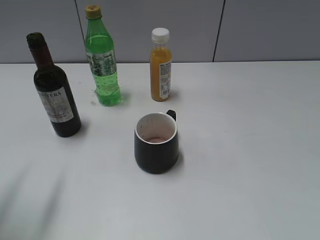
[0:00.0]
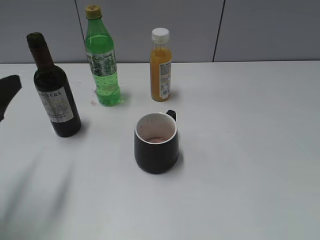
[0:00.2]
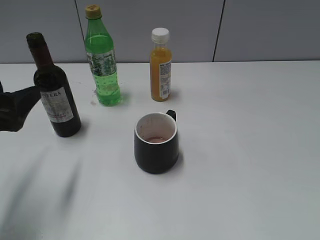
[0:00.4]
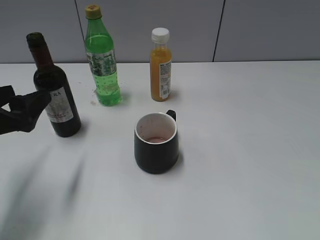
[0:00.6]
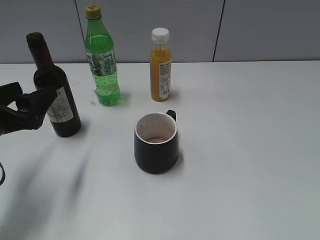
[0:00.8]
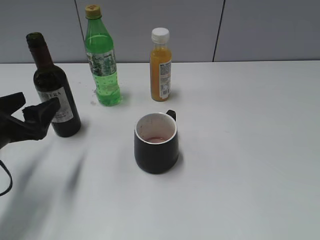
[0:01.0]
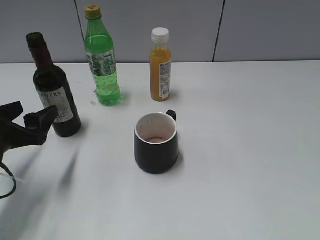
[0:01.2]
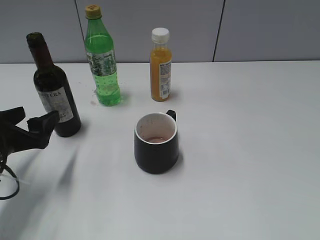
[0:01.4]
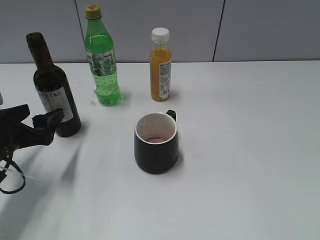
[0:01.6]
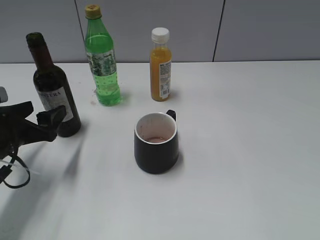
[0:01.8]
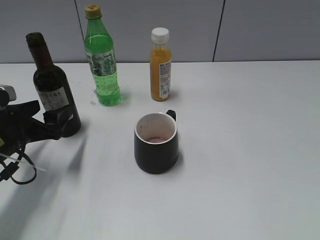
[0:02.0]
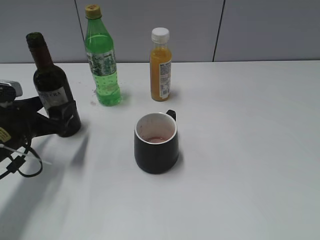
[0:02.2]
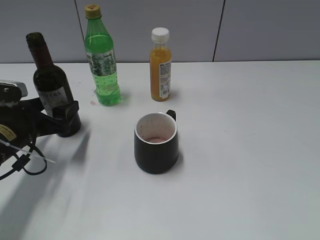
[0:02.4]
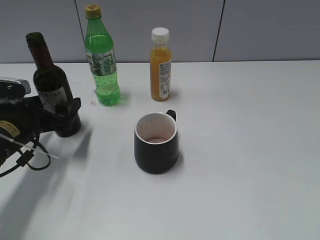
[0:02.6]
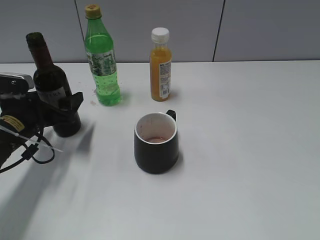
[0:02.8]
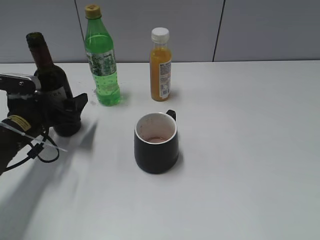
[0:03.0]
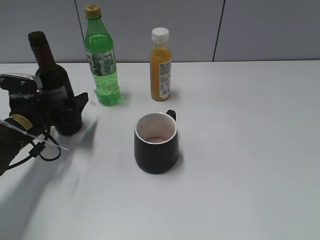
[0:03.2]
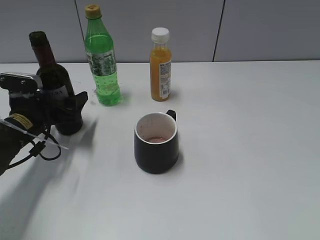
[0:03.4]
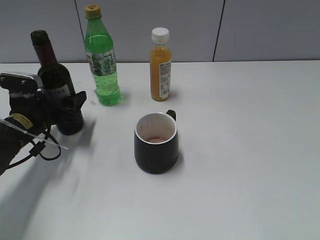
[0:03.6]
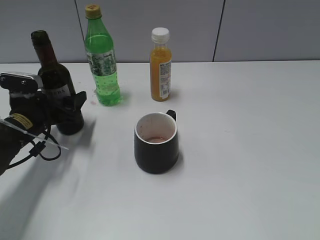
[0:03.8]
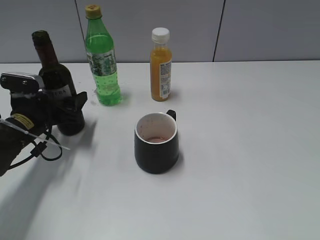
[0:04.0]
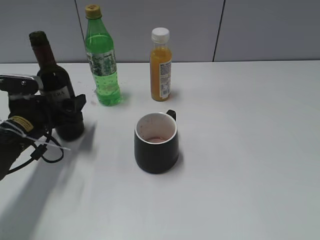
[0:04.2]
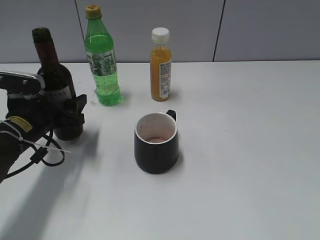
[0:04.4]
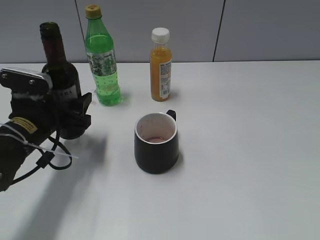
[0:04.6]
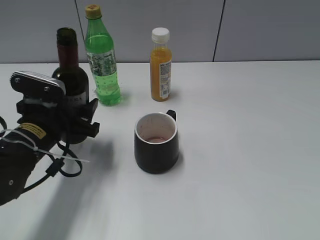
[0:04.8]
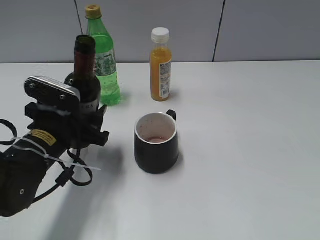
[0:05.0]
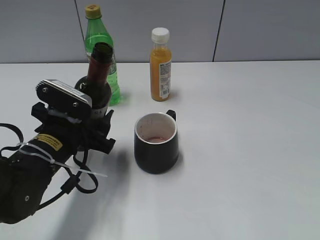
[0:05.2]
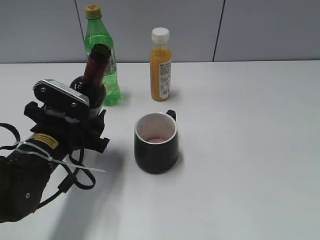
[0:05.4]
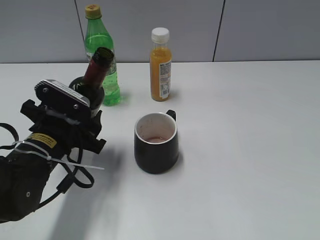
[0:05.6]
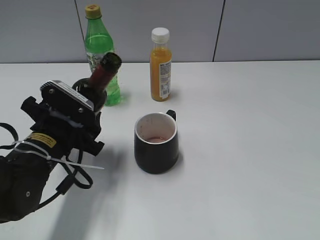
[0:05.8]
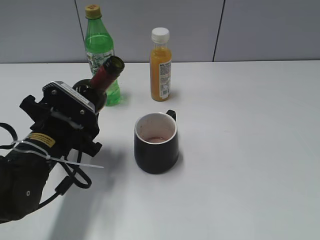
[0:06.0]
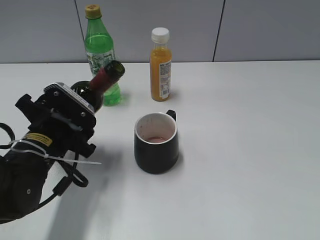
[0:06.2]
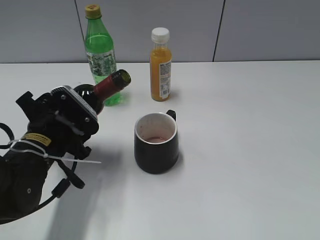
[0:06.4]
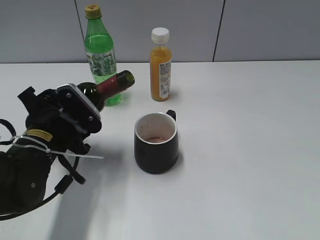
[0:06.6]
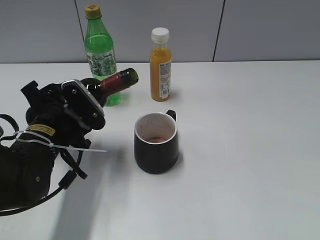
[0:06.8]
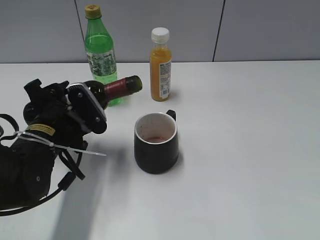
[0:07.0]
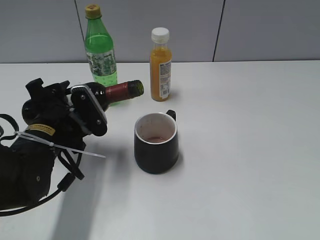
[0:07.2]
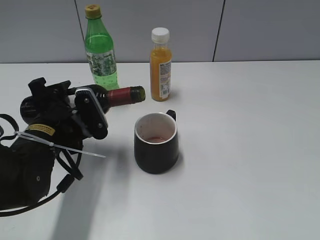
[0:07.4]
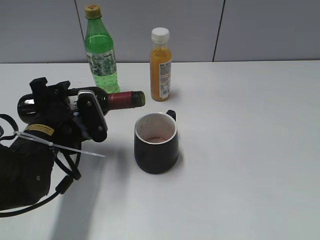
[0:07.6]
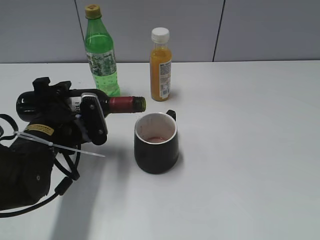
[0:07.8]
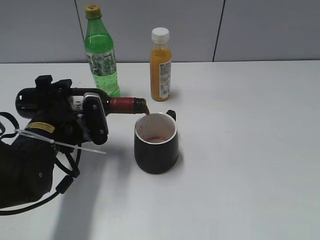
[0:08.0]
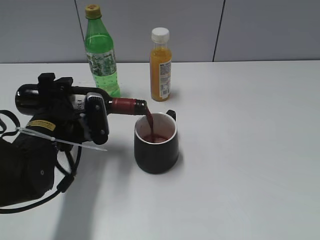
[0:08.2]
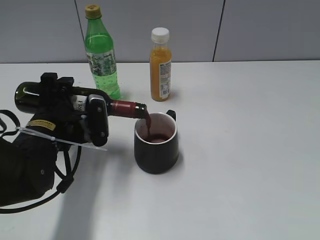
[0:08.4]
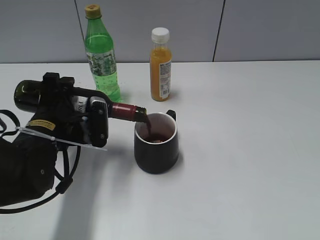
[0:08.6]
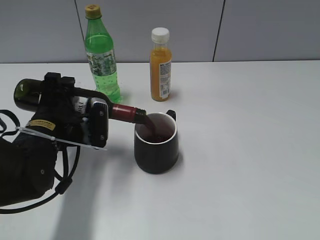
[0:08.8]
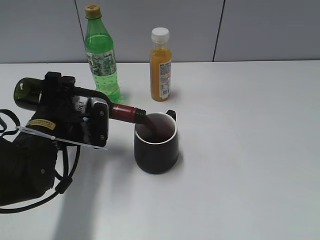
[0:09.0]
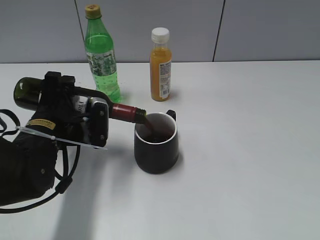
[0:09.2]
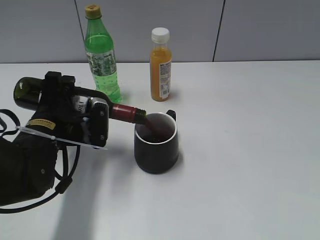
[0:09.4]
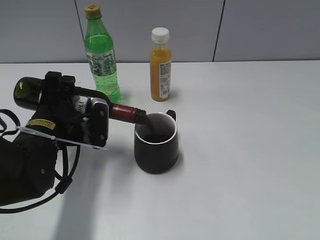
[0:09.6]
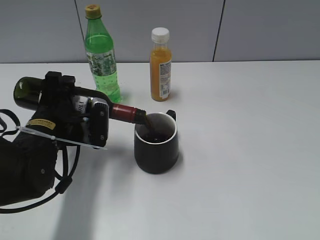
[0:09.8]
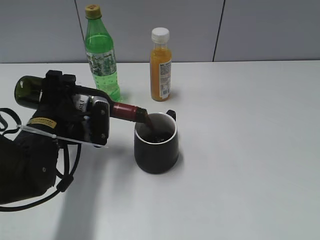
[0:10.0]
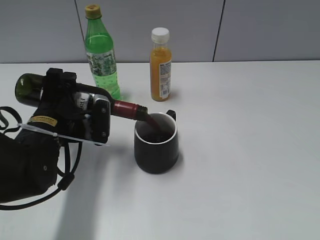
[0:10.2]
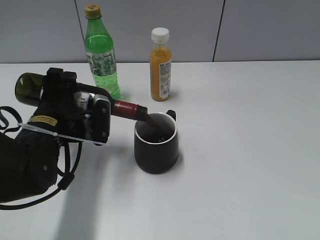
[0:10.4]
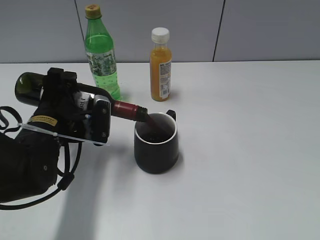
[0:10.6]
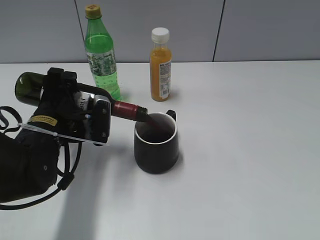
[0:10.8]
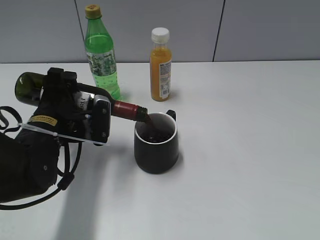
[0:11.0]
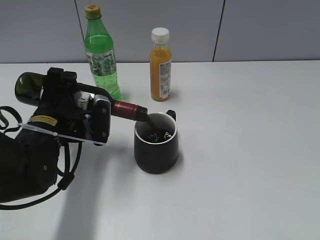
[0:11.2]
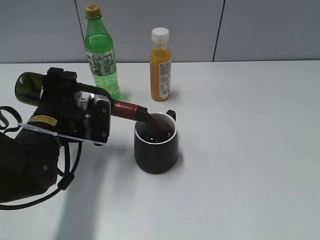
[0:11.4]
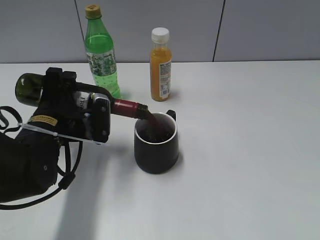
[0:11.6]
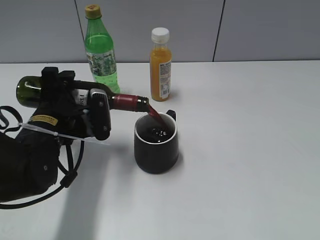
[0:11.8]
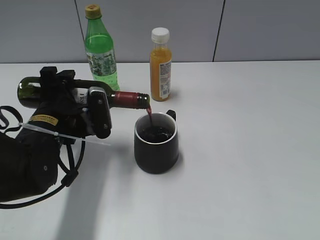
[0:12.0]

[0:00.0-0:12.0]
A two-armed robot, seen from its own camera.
Step, 0:00.0 to 0:04.0: Grasp the bottle with red wine with left gripper.
0:00.0 to 0:01.6: The left gripper goes roughly 15 cm downward and forward.
0:01.6 to 0:03.0: The left gripper shifts about 10 cm forward.
0:03.0 to 0:04.4: The grippers stay close to where they were, moving slightly.
0:04.4 to 0:06.0: The left gripper moves to the right and backward, about 10 cm.
0:07.6 to 0:09.0: There are only small adjustments of the grippers.
0:09.0 to 0:10.4: Both grippers stay about where they are.
0:10.4 to 0:12.0: There are only small adjustments of the grippers.

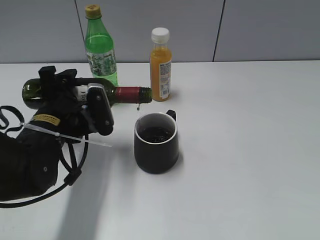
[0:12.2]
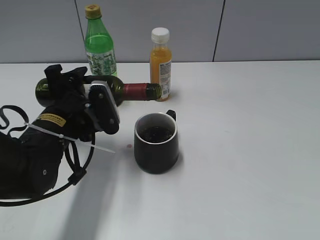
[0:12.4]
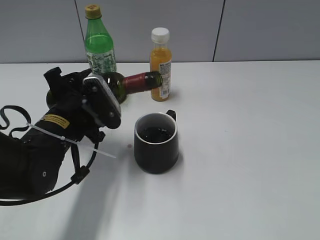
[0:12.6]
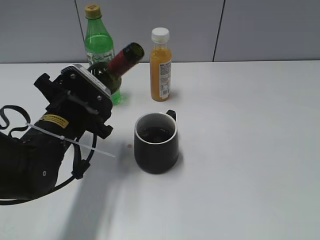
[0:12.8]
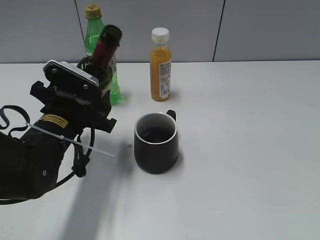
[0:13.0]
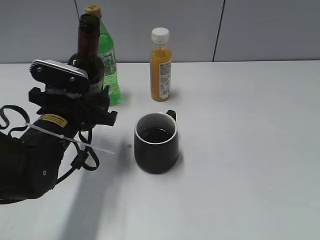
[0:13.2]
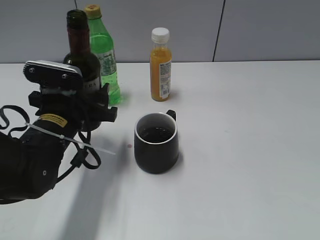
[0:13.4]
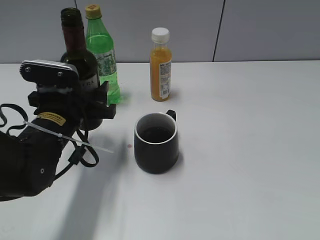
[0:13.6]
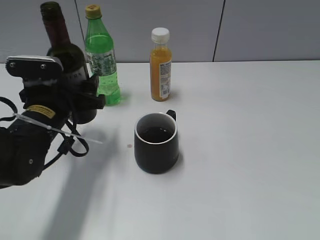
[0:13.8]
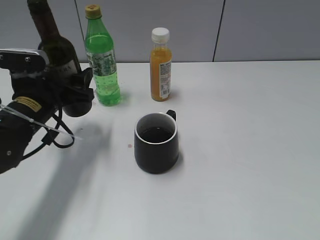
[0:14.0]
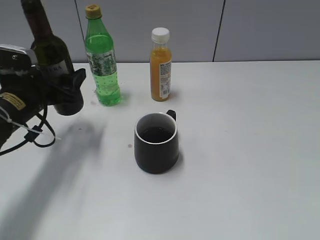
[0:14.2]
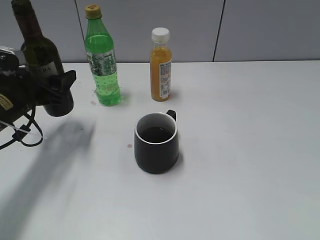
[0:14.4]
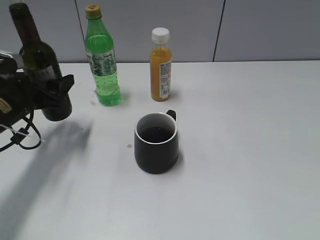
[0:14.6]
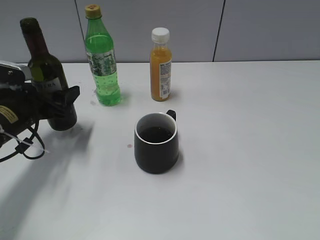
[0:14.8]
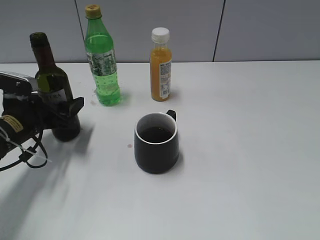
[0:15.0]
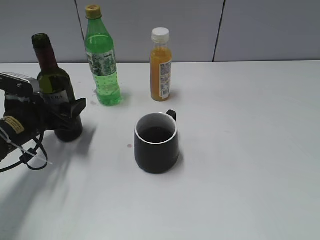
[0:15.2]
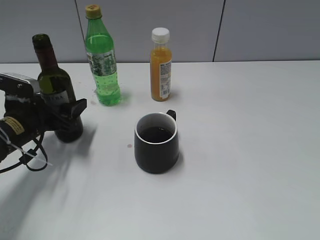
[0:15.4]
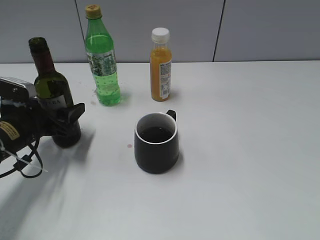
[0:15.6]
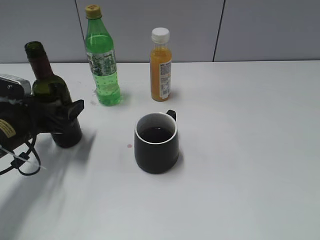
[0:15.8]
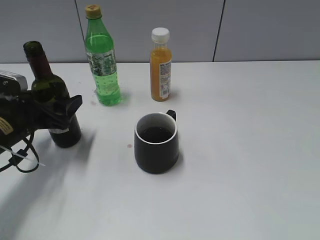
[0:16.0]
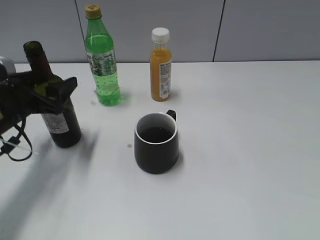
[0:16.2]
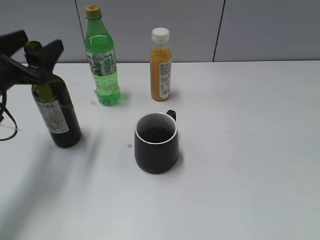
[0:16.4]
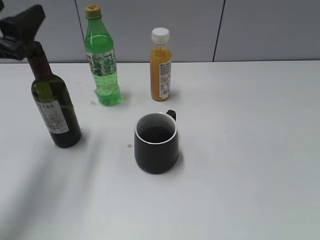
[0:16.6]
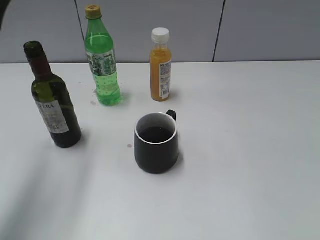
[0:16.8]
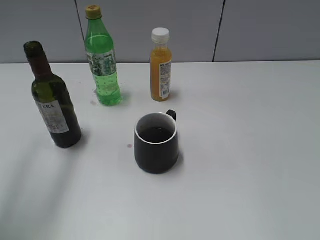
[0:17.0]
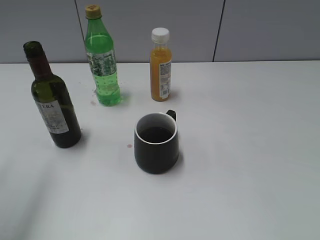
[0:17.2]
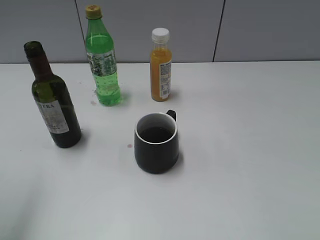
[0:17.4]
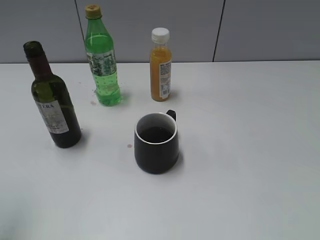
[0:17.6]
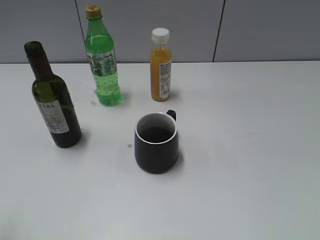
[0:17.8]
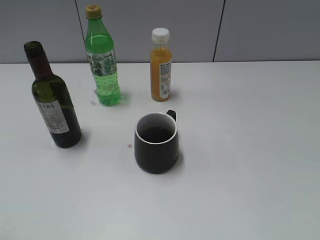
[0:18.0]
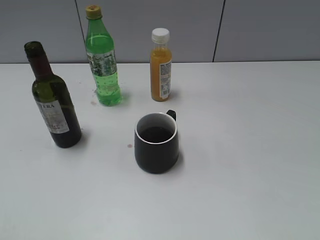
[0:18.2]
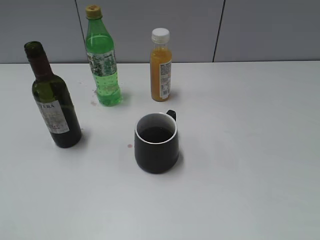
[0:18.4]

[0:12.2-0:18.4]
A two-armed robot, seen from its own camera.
Step, 0:12.8 to 0:16.0: Place the red wine bottle on the table with left gripper.
0:13.8 to 0:15.4: The left gripper travels to the left and downward by roughly 10 cm.
0:15.4 to 0:16.8: The left gripper travels upward by some 20 cm.
0:16.8 to 0:18.4: The left gripper travels backward by about 25 cm.

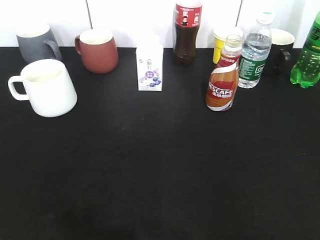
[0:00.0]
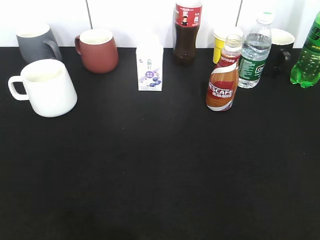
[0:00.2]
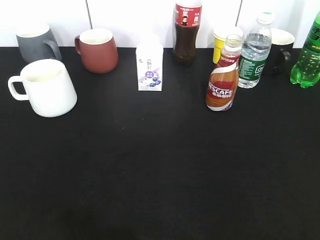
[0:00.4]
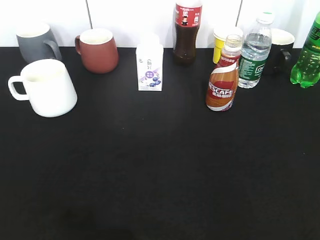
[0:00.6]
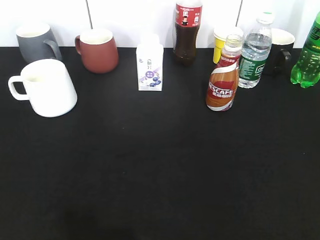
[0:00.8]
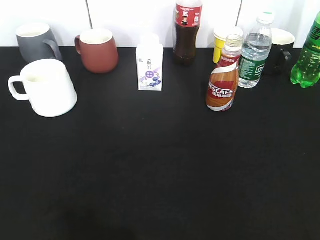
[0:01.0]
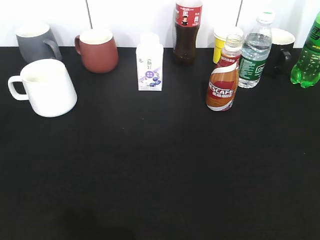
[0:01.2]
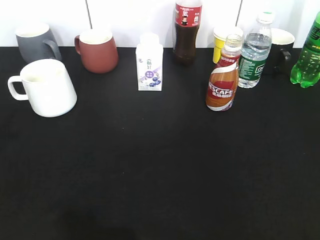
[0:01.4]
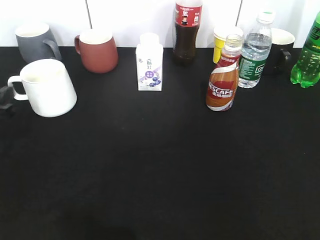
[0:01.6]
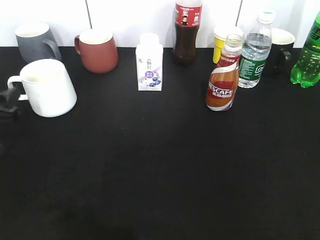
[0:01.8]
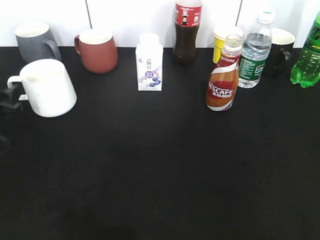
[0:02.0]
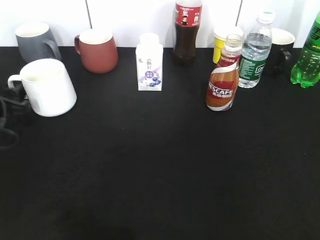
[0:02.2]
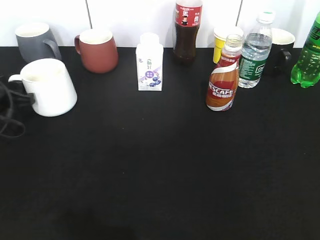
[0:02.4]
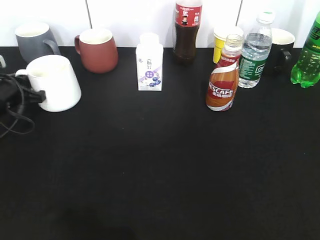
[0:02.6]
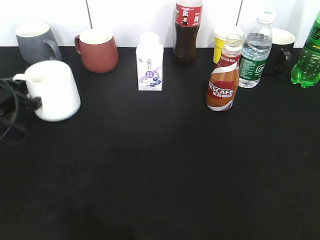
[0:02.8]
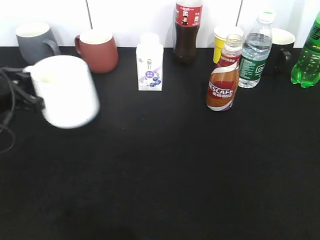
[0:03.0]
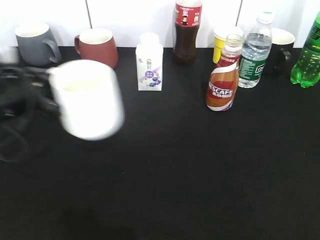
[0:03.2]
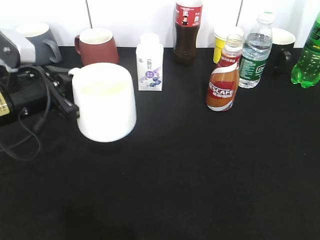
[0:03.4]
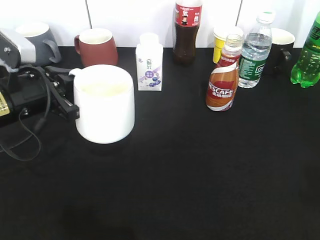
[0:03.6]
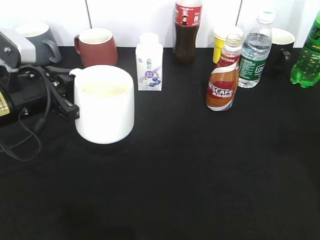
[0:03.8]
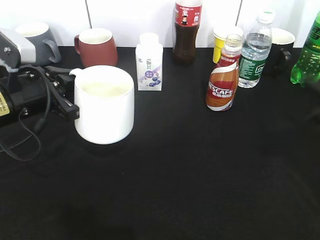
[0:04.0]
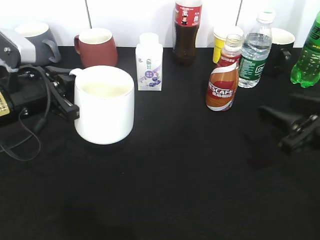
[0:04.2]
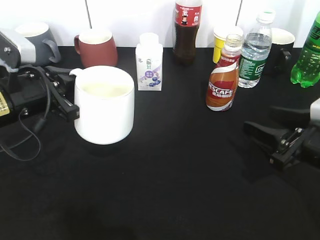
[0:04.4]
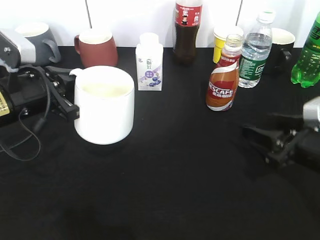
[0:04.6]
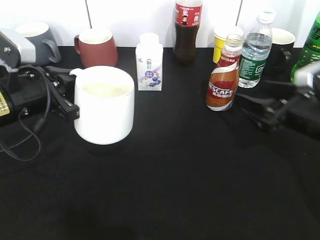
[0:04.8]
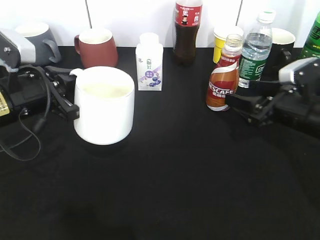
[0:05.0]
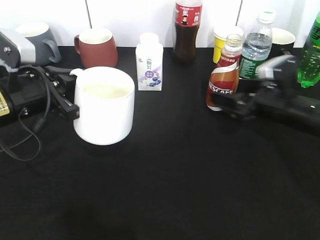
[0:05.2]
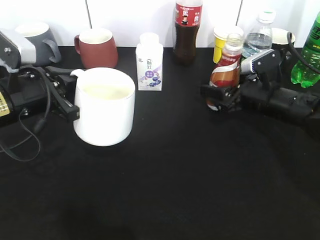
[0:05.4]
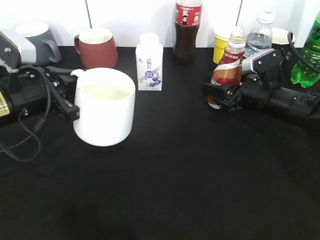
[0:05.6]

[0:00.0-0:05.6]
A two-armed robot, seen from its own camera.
Step, 0:00.6 to 0:02.6: Grasp the white cup with left gripper.
Step, 0:02.8 to 0:03.4: Lift the white cup with left gripper.
Step, 0:03.6 to 0:05.2: Grasp the bottle with coffee with right gripper.
0:00.0 to 0:01.4: The left gripper moves forward, about 25 cm, and opens its fingers.
0:01.4 to 0:02.8: The left gripper travels forward and downward by some 10 cm, and closes.
0:02.8 to 0:04.2: The right gripper goes roughly 25 cm forward and downward, while the left gripper heads to the right and upward, covering approximately 10 cm.
0:04.2 to 0:05.6: The right gripper shifts approximately 15 cm forward and to the left, and opens, then closes again.
